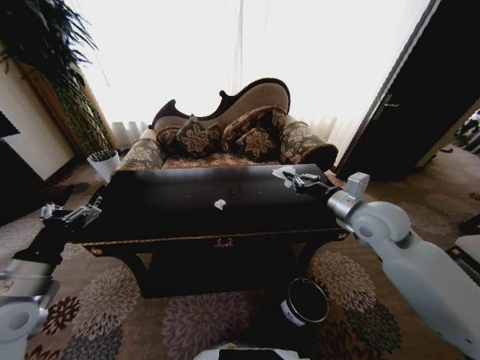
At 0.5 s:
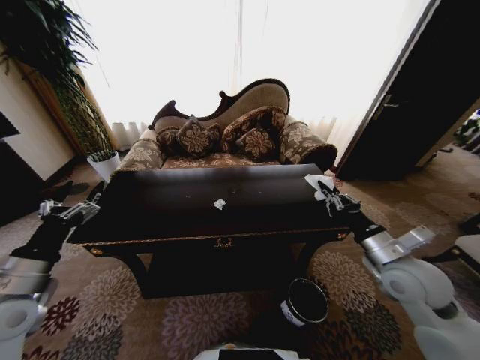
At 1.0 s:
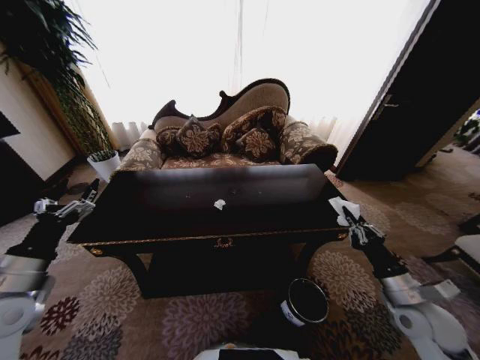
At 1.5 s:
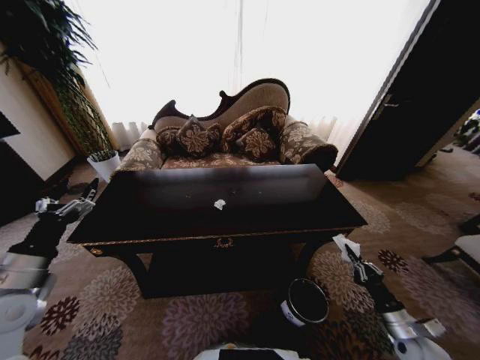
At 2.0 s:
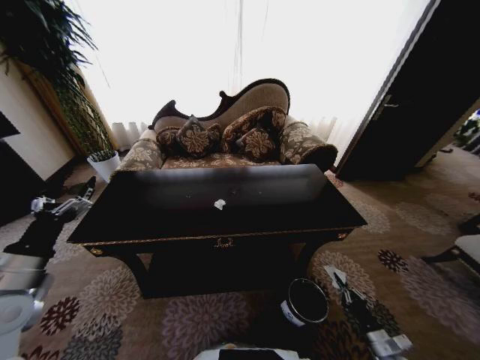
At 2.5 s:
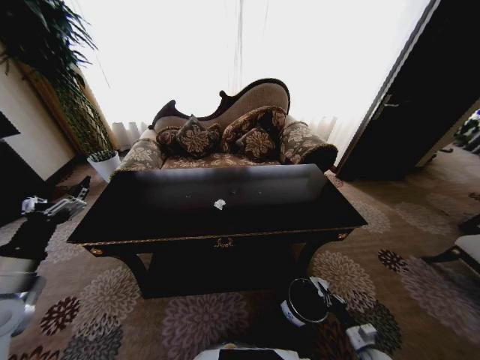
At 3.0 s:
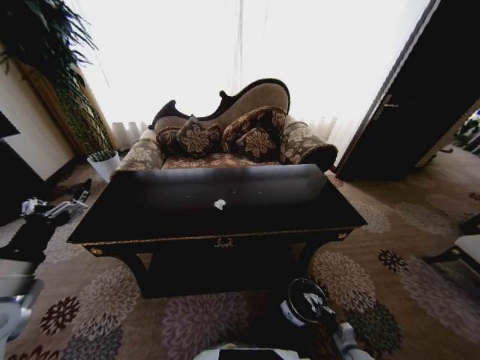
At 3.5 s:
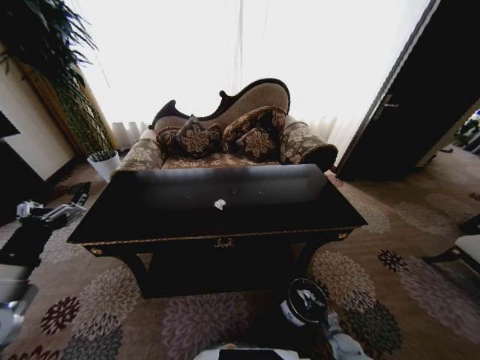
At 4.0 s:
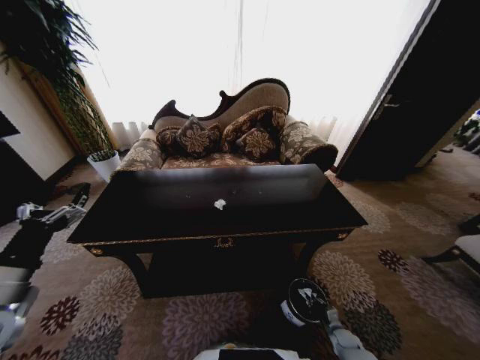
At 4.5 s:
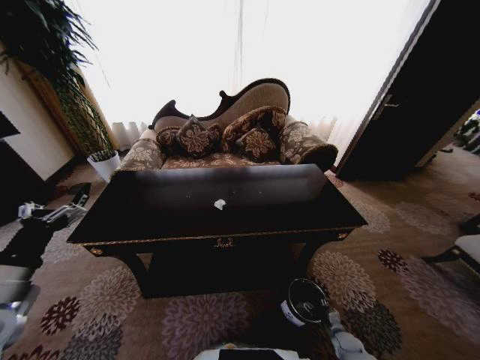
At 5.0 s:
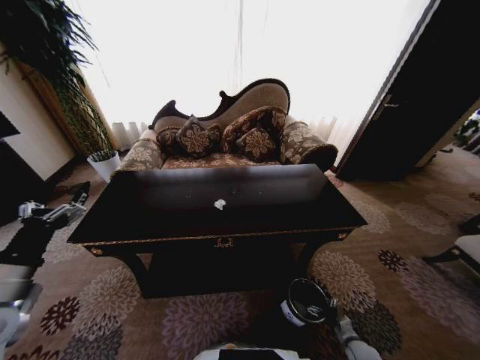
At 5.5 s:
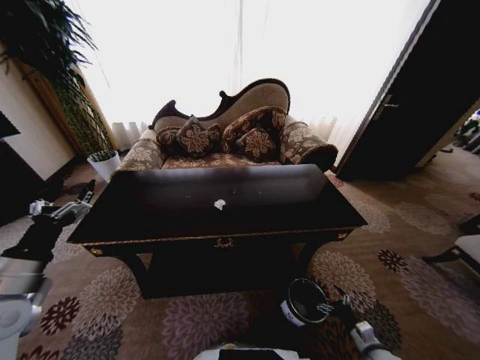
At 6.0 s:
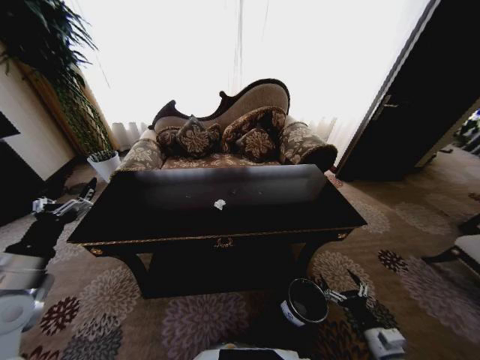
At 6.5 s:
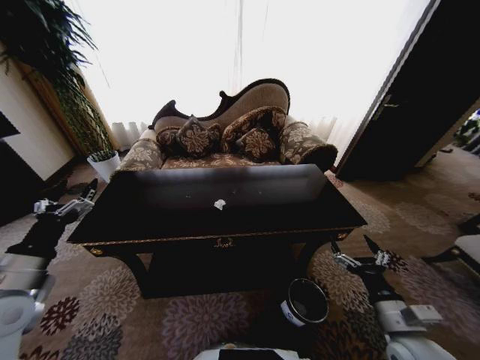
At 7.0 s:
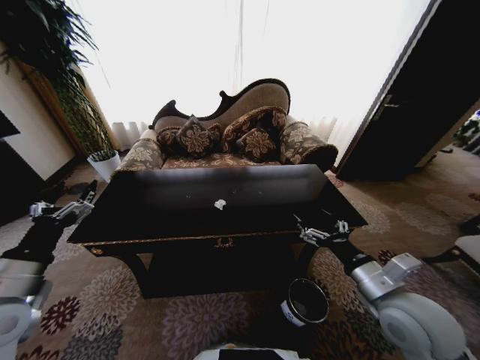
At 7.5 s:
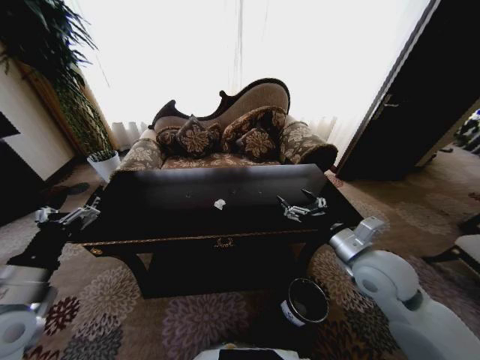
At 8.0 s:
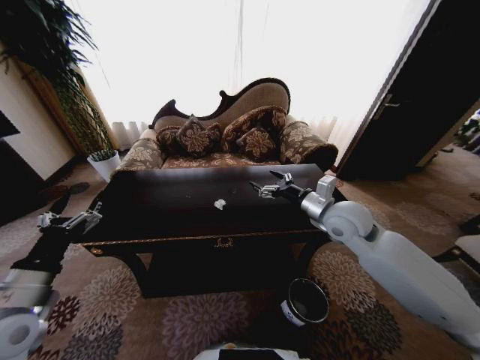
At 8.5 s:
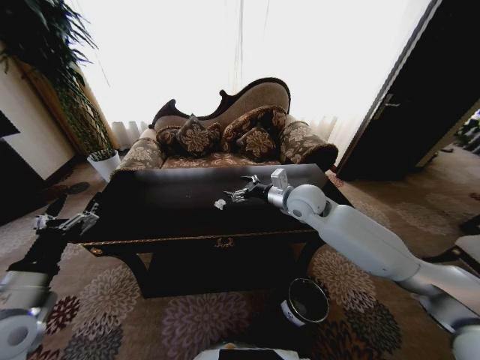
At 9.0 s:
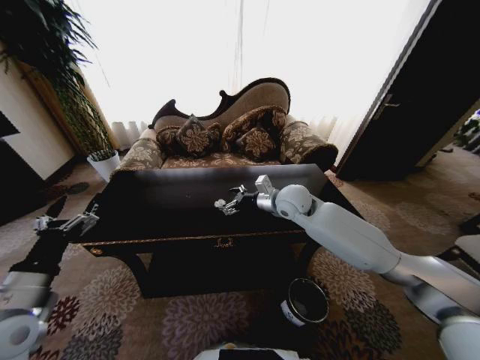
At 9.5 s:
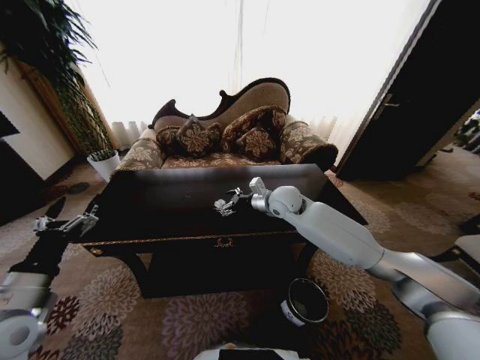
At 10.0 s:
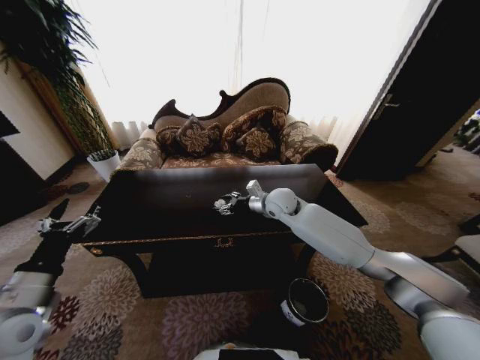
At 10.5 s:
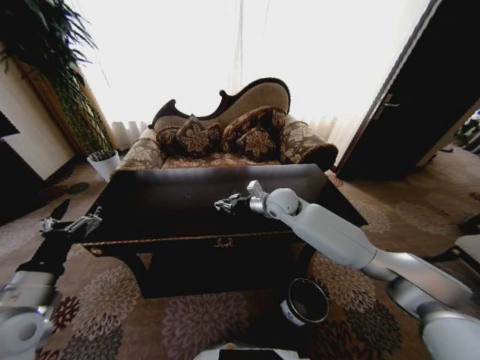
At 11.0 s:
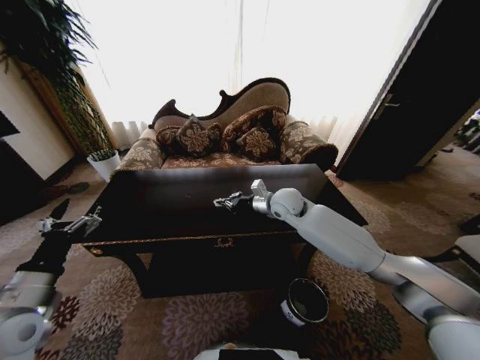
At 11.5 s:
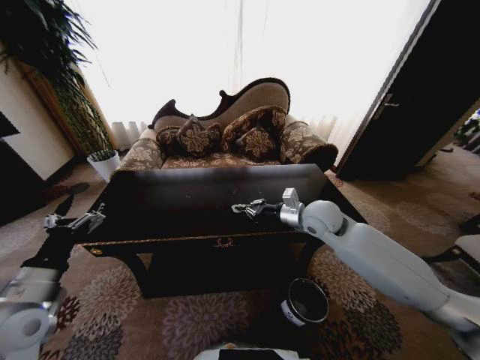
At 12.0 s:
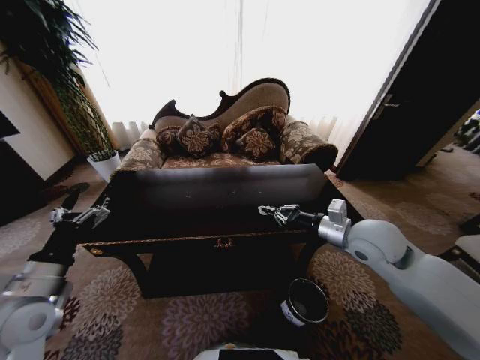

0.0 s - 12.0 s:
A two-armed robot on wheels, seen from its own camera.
Task of the whole recording: Move to the front of the table and place the trash on the table into the trash bin.
0.0 s - 2.0 s: The right gripper moves downward, backward and to the right, some 50 cm.
2.0 s - 4.0 s: The right gripper travels downward, forward and to the left by roughly 15 cm.
4.0 s - 6.0 s: The right gripper goes roughly 25 cm upward and backward, and opens its fingers.
6.0 s - 8.0 s: The right gripper goes approximately 40 cm upward, forward and to the left.
8.0 s - 10.0 s: The right gripper moves forward, to the left and downward, about 15 cm.
10.0 s - 12.0 s: The right gripper is displaced backward and to the right by roughly 20 cm, and closes.

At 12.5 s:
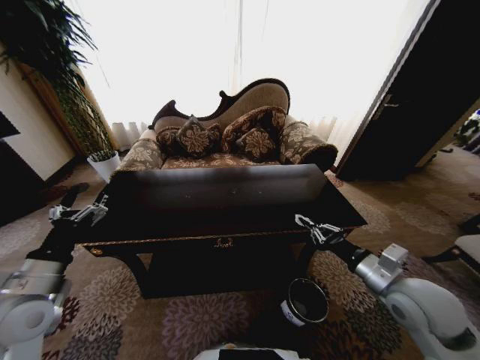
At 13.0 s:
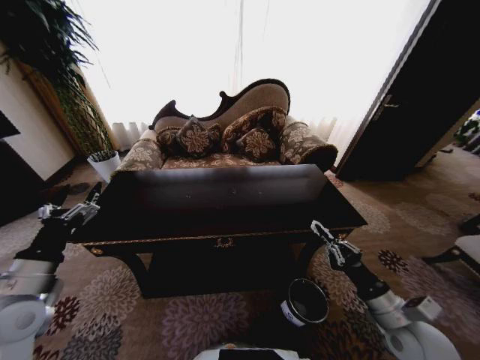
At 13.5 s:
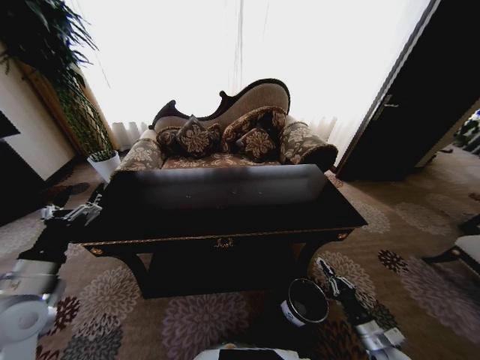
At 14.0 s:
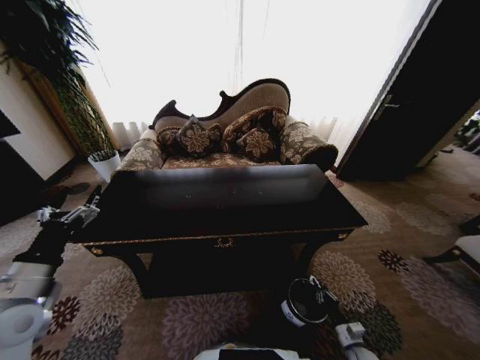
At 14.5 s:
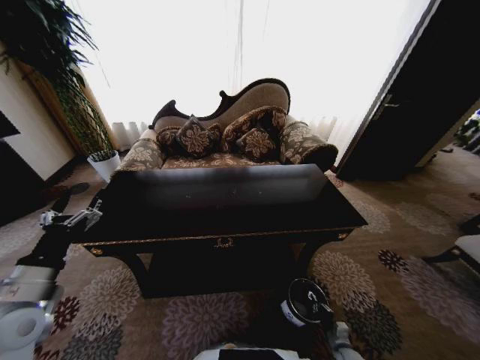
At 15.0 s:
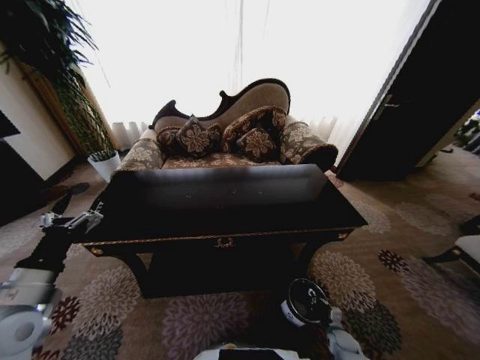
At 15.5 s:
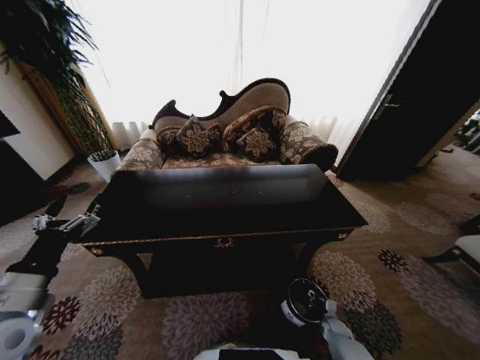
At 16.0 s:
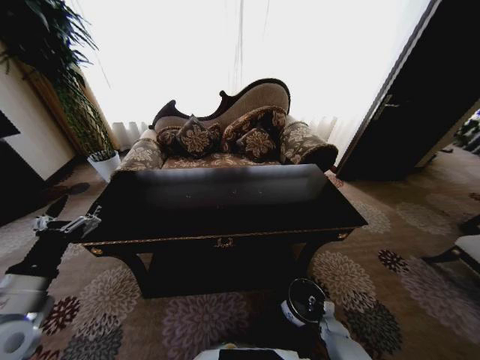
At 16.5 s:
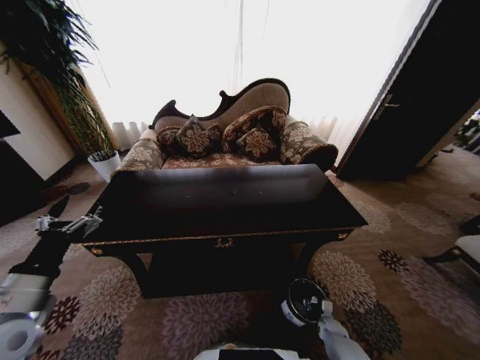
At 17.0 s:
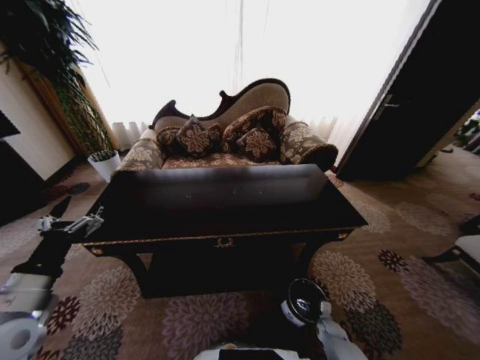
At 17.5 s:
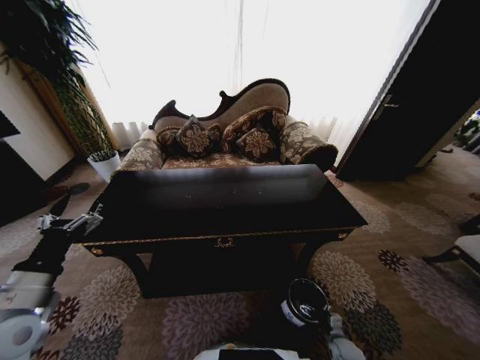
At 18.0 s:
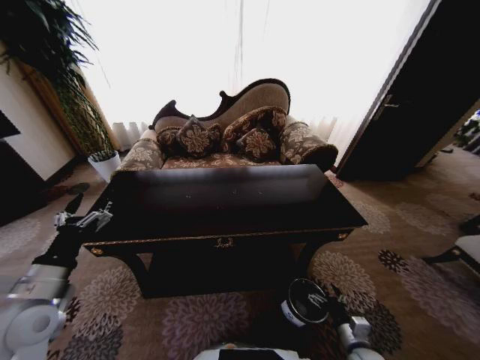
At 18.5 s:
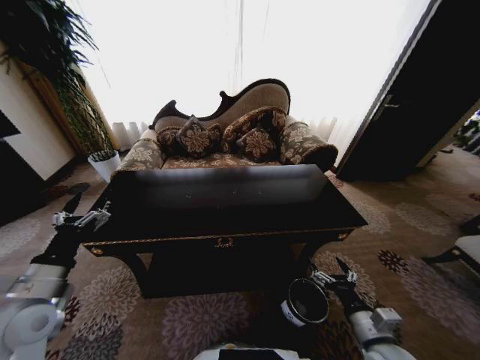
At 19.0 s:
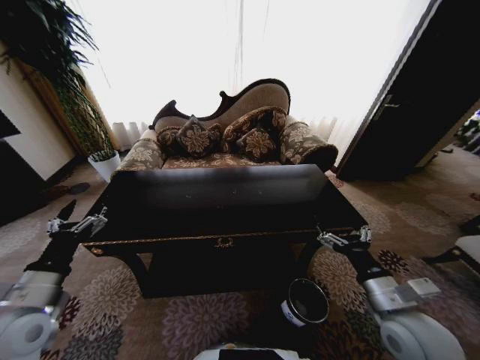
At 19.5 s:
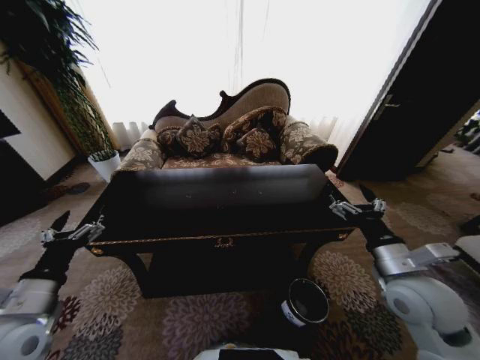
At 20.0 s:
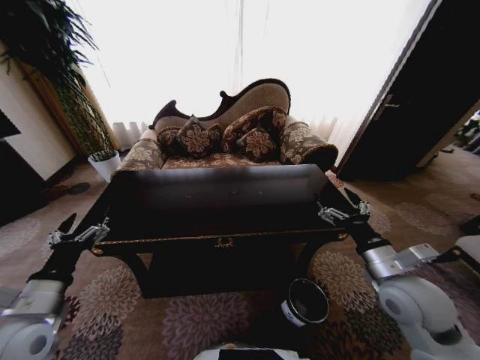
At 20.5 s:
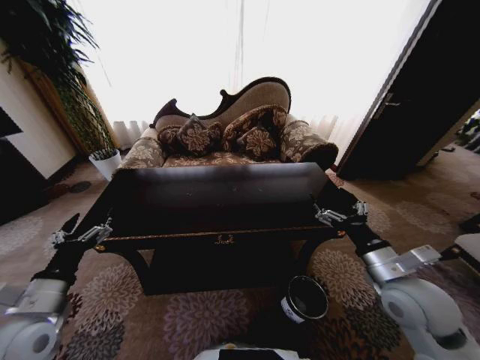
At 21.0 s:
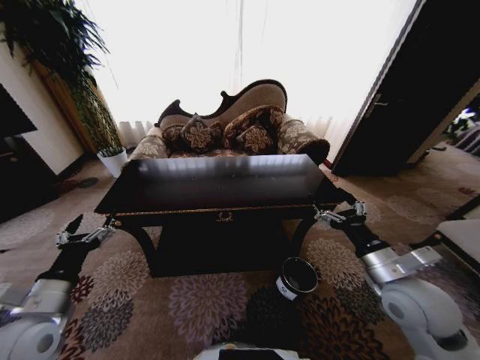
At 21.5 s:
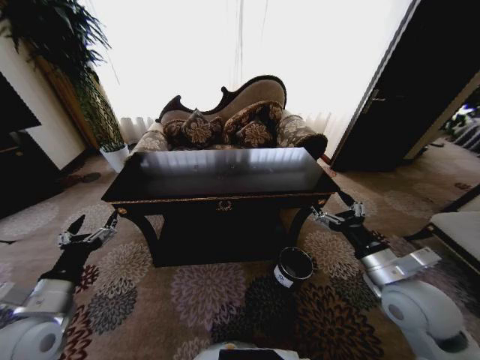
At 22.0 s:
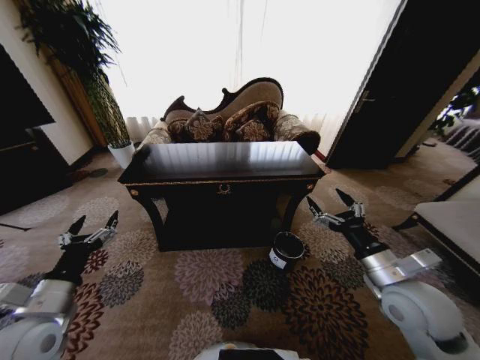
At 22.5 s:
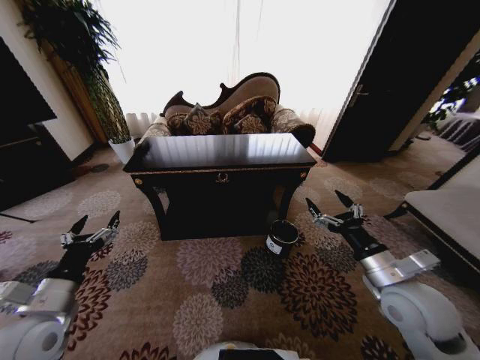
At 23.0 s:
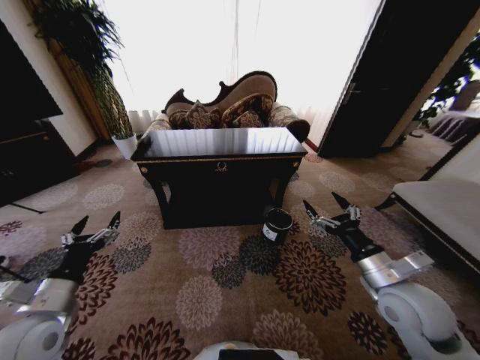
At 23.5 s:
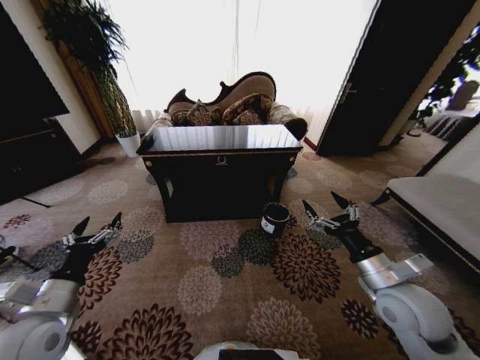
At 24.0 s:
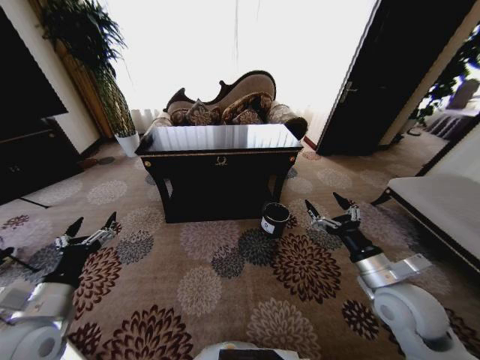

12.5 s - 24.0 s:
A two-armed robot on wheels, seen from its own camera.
Task of the whole recording: Move to the front of the table and place the trash on the table into the trash bin.
12.5 s - 14.5 s: The right gripper heads downward, covering about 40 cm.
14.5 s - 16.5 s: The right gripper travels forward by some 10 cm, and opens its fingers.
16.5 s - 18.5 s: The right gripper shifts approximately 35 cm upward, and opens.
18.5 s - 20.0 s: The right gripper goes roughly 15 cm upward and forward.

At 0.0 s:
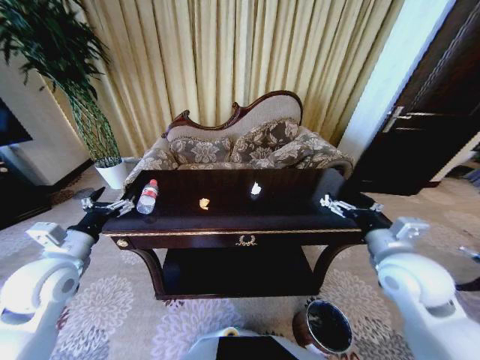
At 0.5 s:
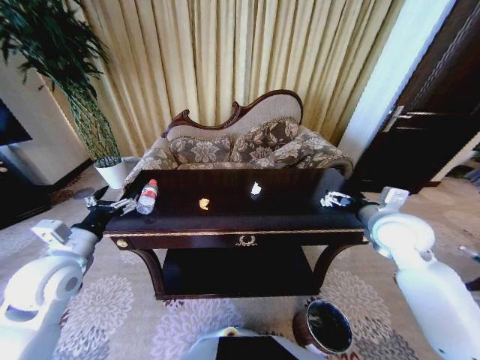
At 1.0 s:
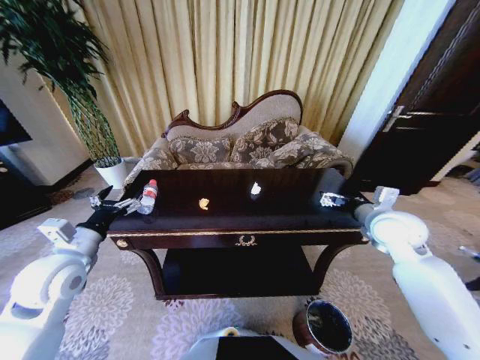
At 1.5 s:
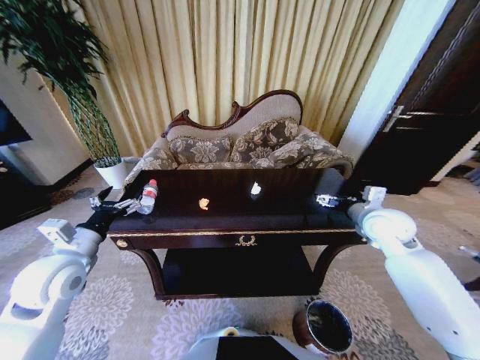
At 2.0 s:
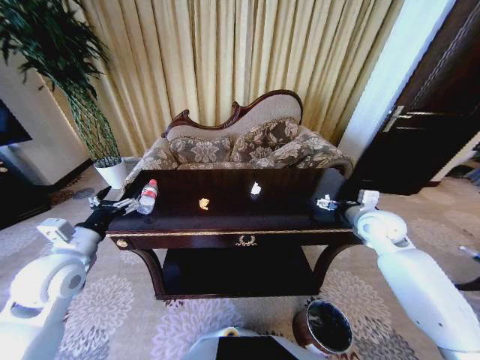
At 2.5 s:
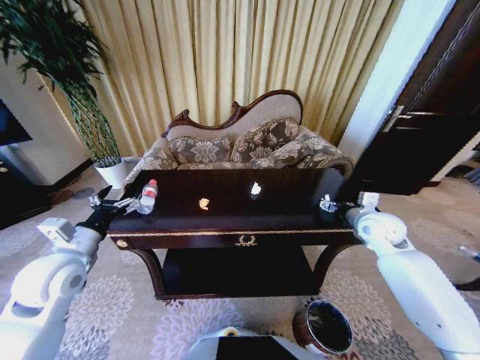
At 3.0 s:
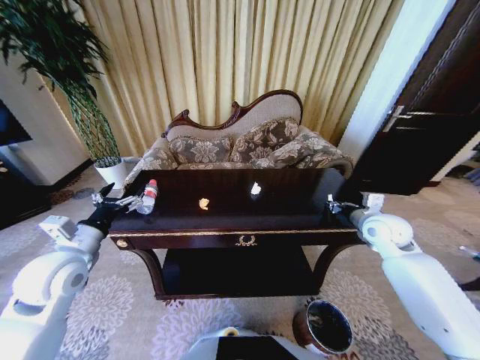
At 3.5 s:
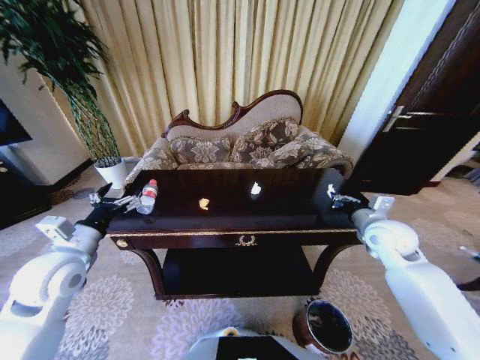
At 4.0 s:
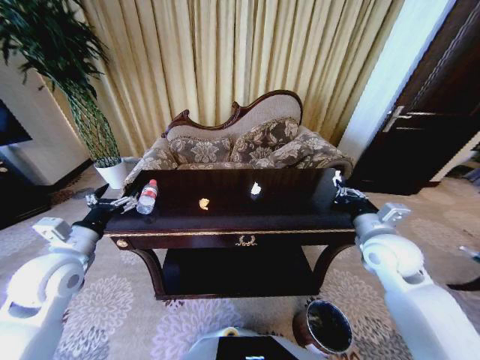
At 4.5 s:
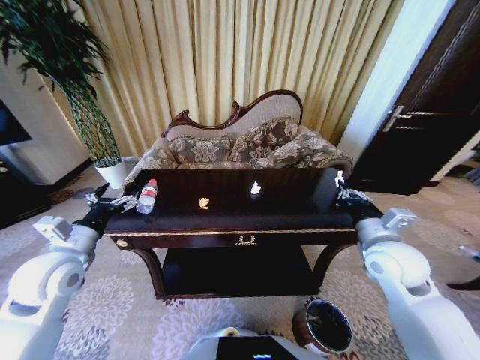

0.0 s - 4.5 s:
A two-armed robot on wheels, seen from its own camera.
Task of the whole recording: Move to the front of the table and place the trash on the table into the trash bin.
0.0 s - 2.0 s: The right gripper heads forward and to the right, covering roughly 15 cm.
2.0 s - 4.5 s: The right gripper is displaced backward and to the left by approximately 10 cm, and closes up.
